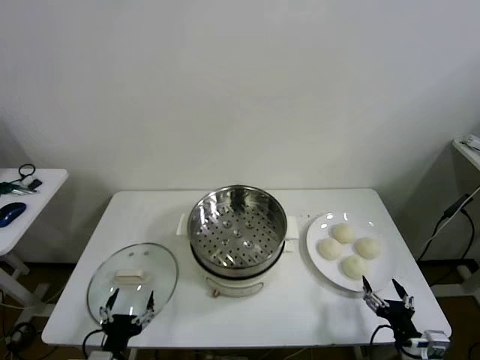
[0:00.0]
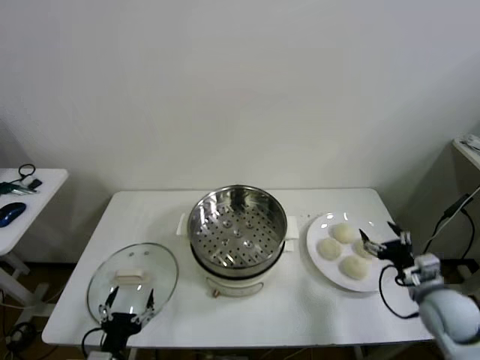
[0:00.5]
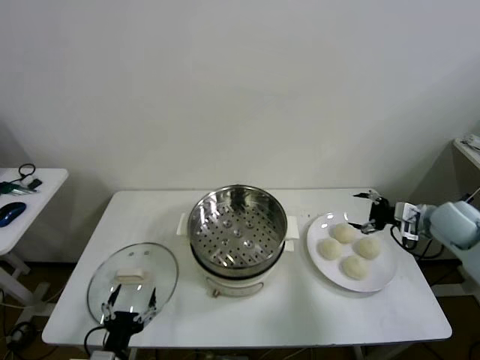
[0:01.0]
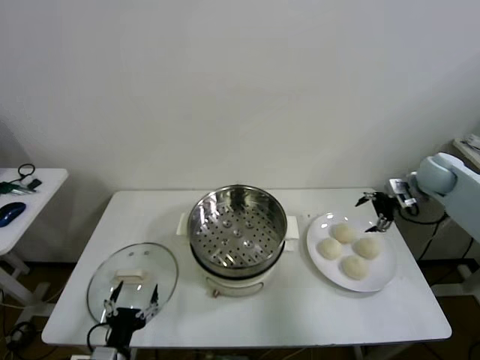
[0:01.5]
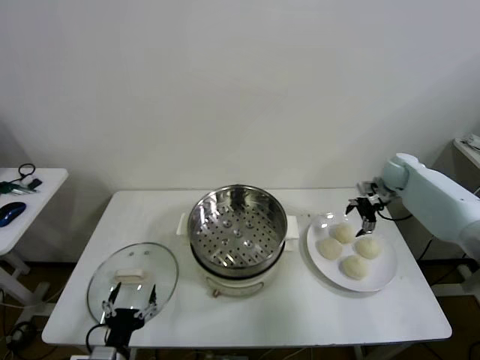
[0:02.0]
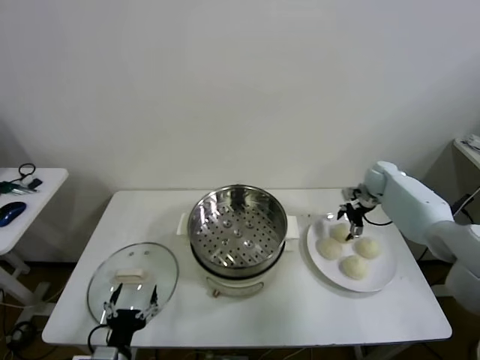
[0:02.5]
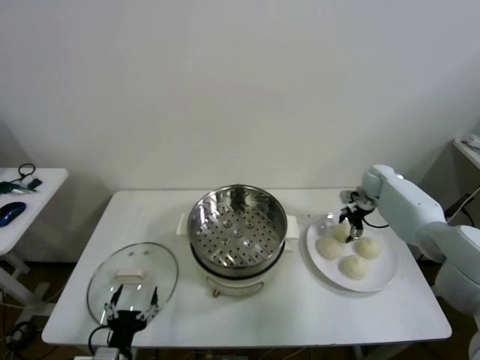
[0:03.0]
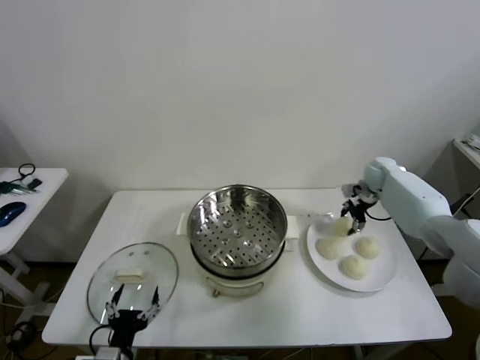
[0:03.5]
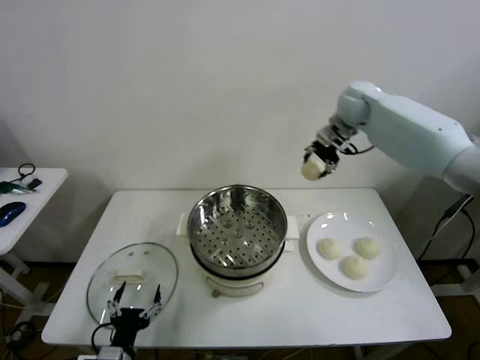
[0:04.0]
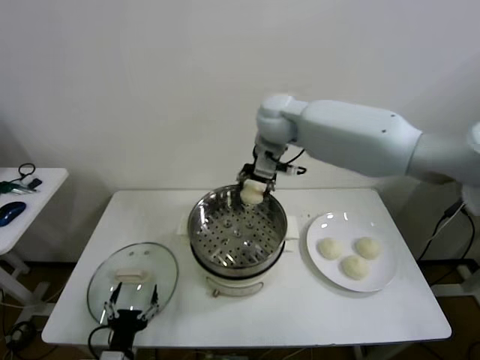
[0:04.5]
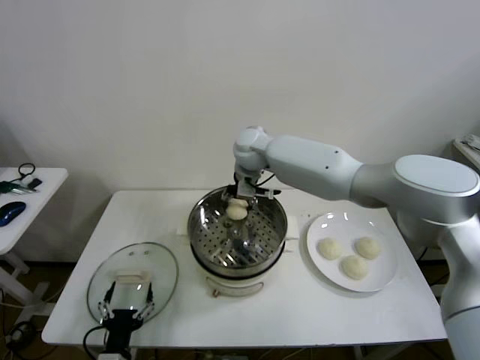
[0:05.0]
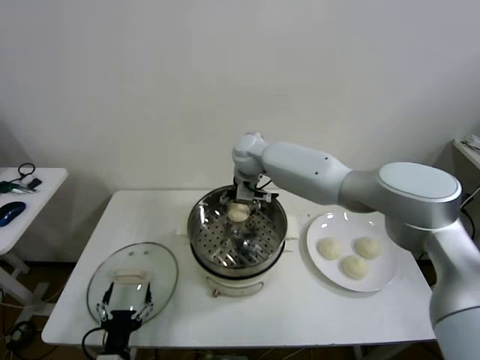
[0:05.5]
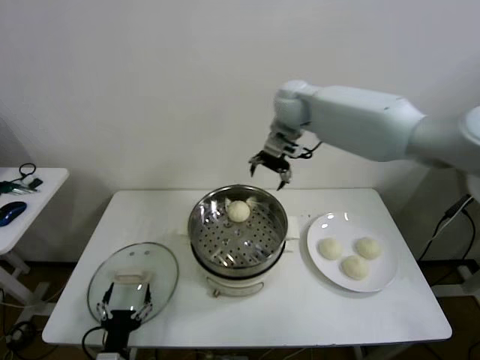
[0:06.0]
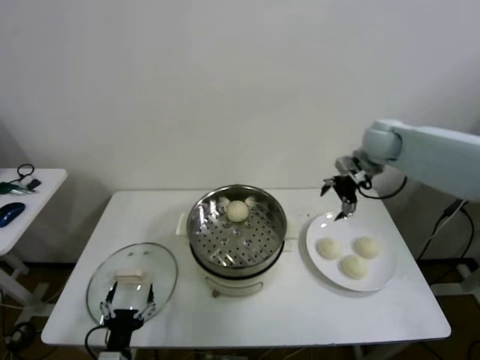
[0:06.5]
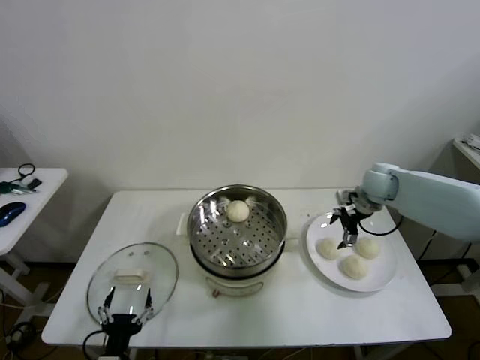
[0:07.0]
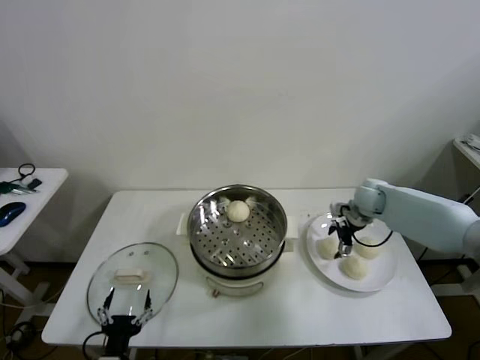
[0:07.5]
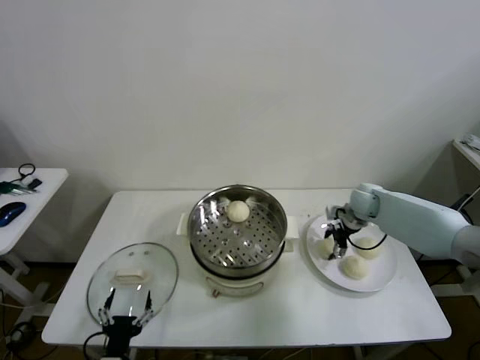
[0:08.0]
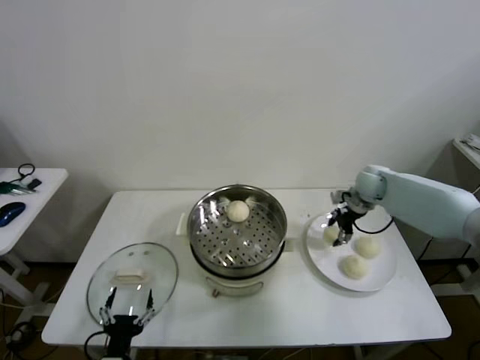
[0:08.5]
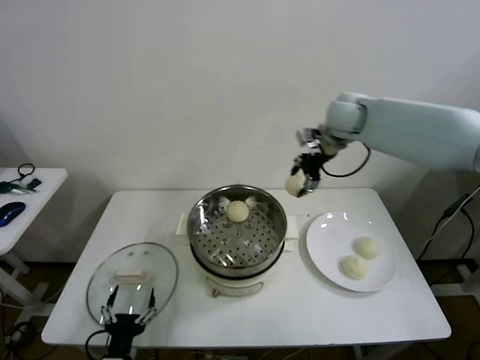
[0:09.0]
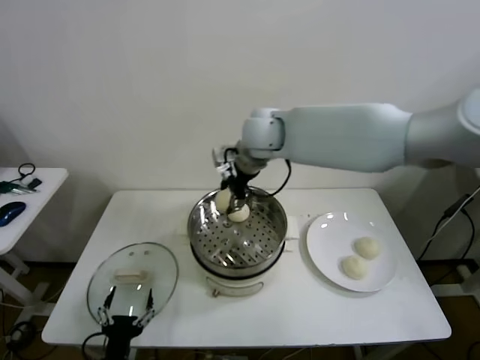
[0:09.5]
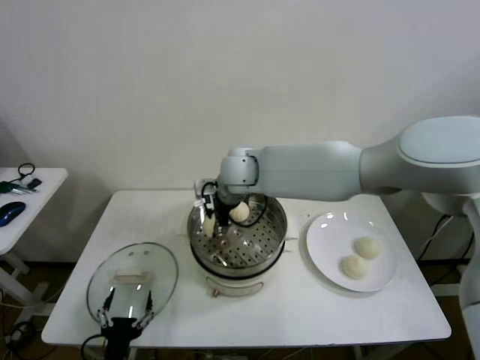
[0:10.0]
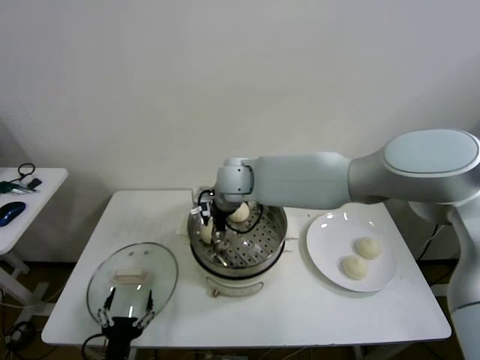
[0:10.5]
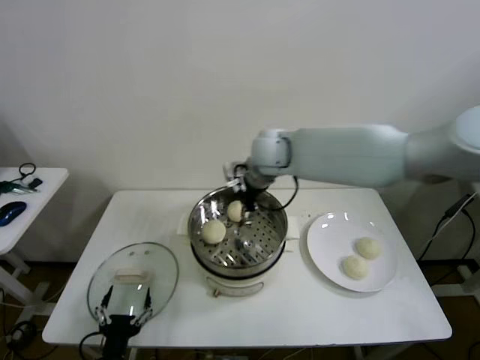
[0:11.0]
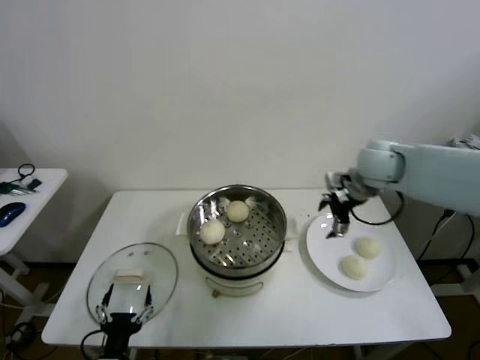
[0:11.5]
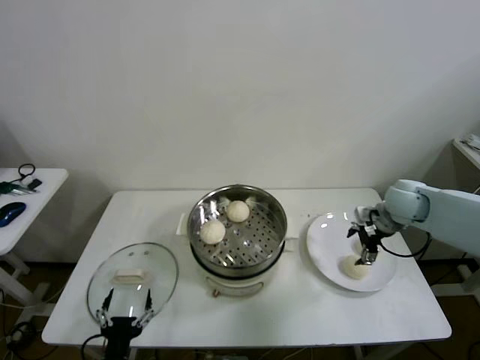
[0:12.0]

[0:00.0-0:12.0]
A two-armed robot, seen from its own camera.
Step, 0:00.0 to 0:03.0: Grasp the baozi in the plate with right gripper.
Step, 0:03.5 to 0:05.0: Place the baozi on the steamer with right gripper.
Step, 0:06.0 to 0:08.0: Grasp the baozi in the plate with right gripper.
Step, 0:08.5 to 0:10.5: Place the baozi on the steamer with right gripper.
0:02.0 to 0:04.0: The right gripper shifts about 30 cm upward and to the left, and closes up.
0:04.0 to 0:06.0: The right gripper moves about 20 cm to the left and comes back, and opens.
0:06.0 to 0:08.0: The right gripper travels downward and to the right by some 35 cm, and closes.
0:08.0 to 0:10.0: The right gripper goes approximately 40 cm to the left and upward.
0:10.0 to 0:12.0: The right gripper is displaced to the right by about 40 cm, and opens its fingers.

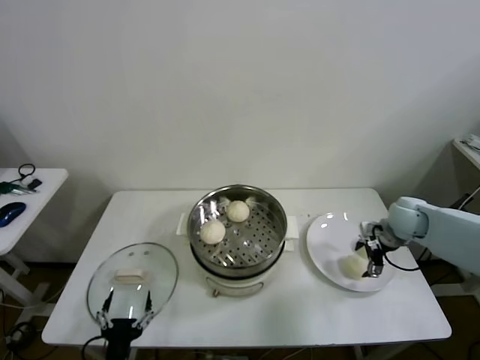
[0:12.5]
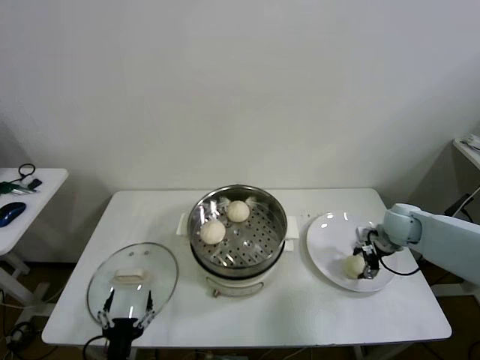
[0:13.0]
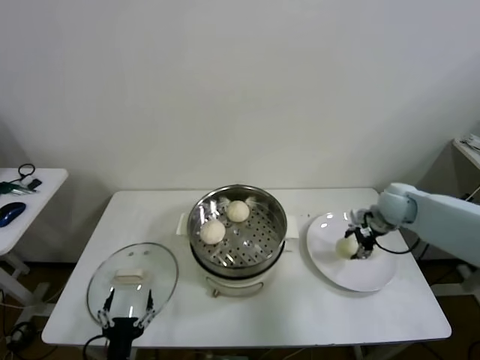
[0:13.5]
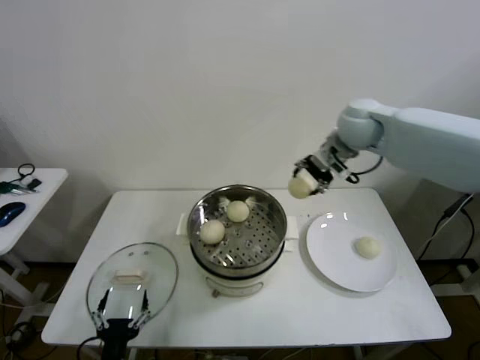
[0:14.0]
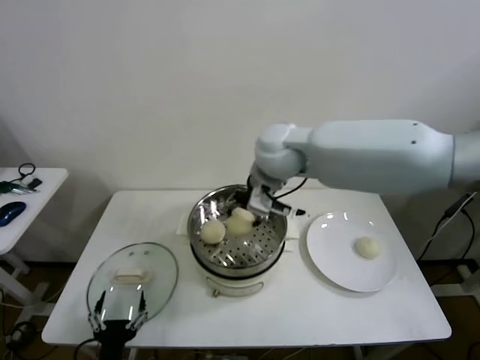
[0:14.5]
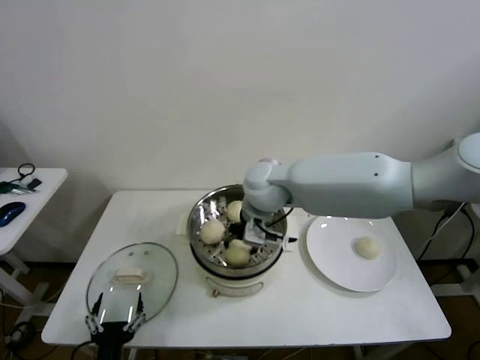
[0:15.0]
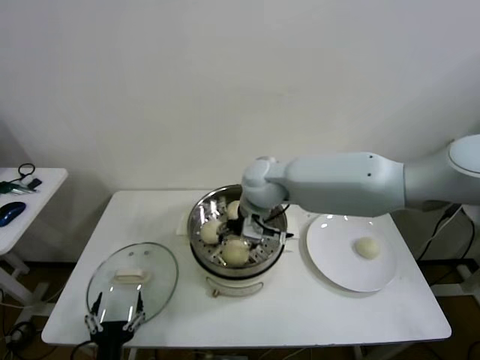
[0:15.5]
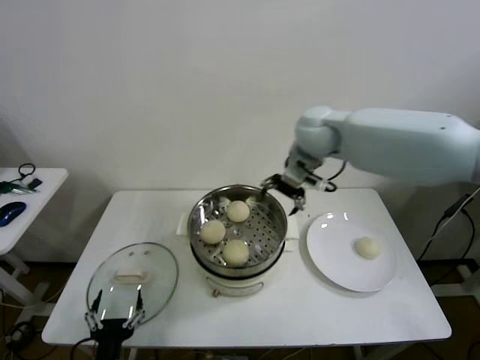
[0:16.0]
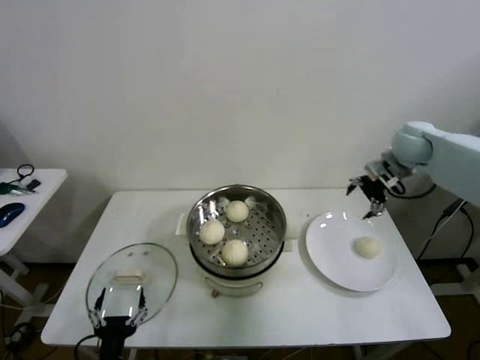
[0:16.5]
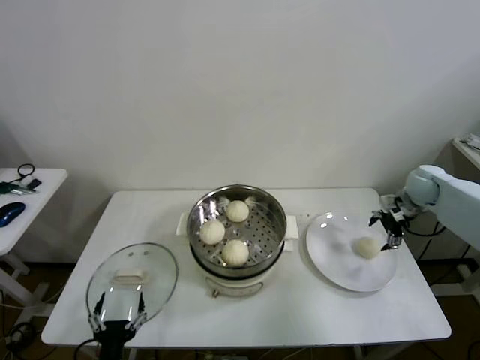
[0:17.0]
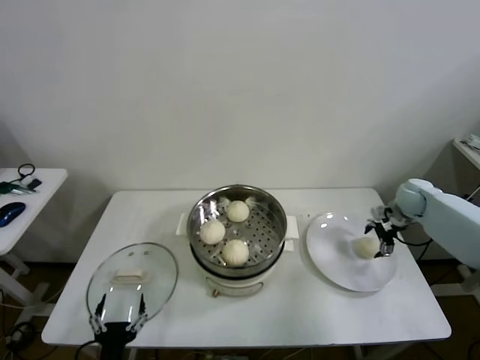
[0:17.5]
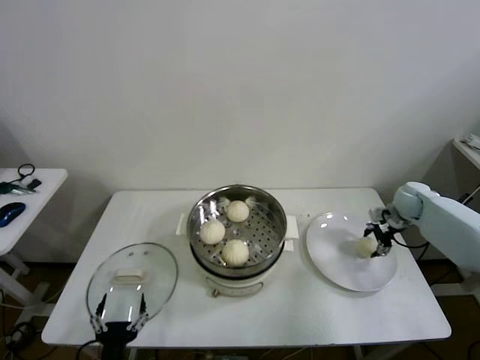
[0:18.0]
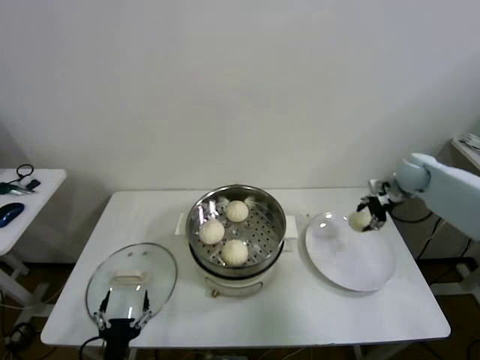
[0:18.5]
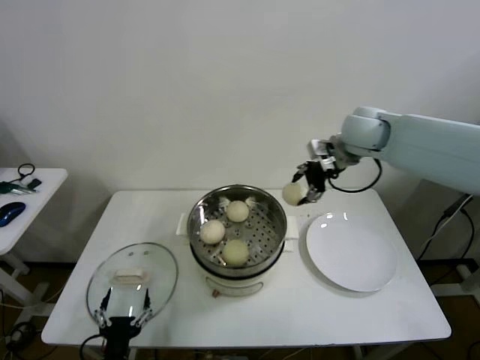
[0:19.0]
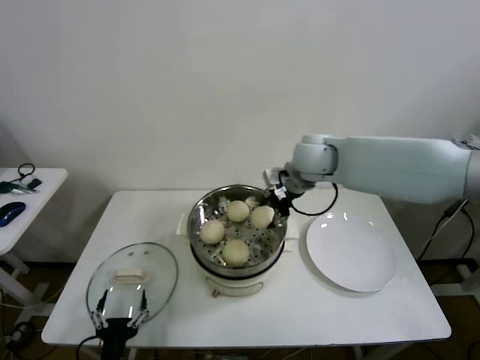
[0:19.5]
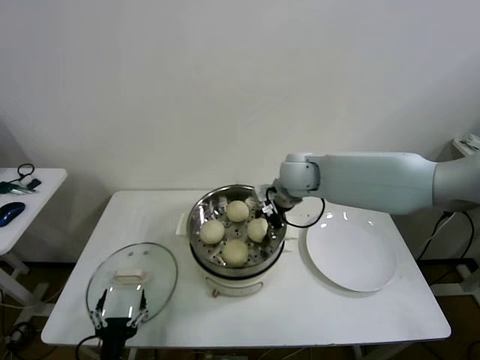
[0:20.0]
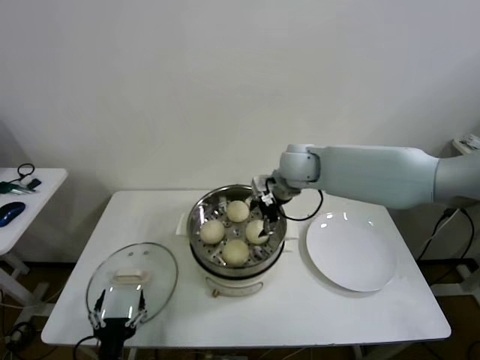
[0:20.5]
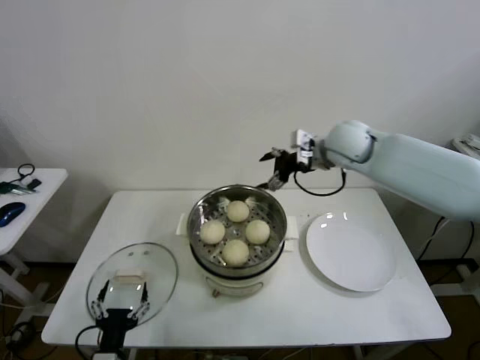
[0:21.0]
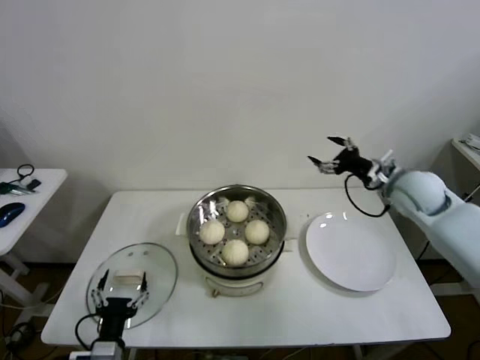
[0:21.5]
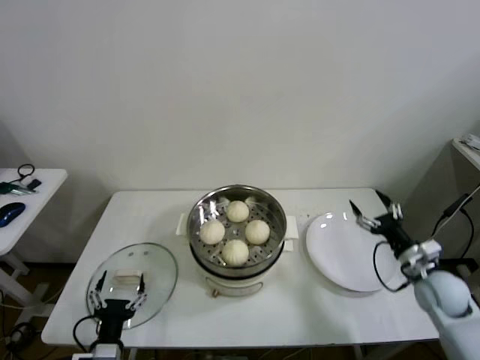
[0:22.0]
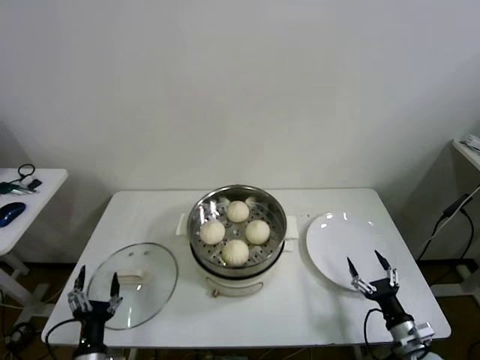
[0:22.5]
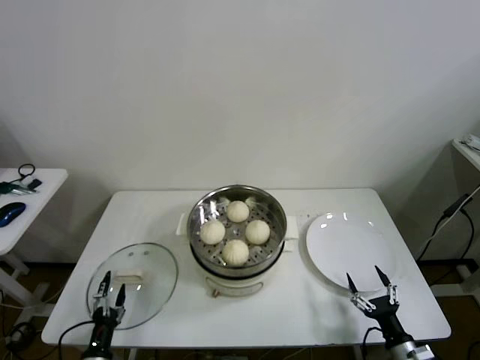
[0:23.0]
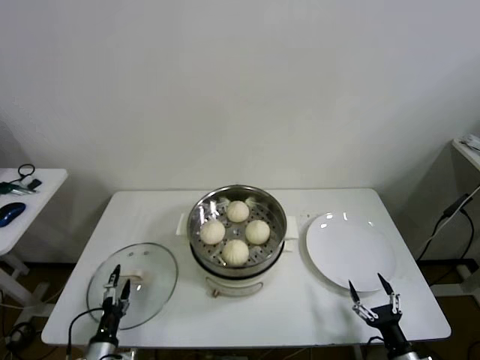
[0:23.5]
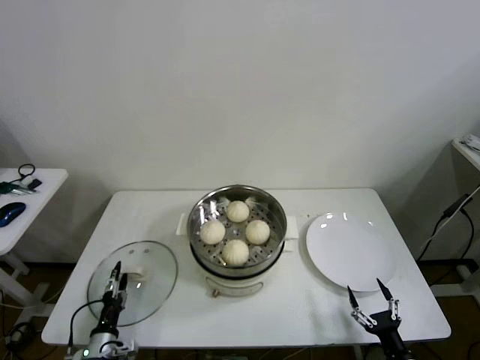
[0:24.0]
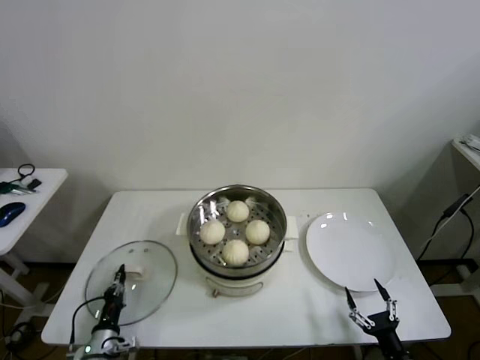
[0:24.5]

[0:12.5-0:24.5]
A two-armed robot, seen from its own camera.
Step, 0:13.5 to 0:15.0: Place the baozi on the steamer with right gripper.
Step, 0:15.5 to 0:18.0: Grasp the baozi in the plate with right gripper.
Step, 0:18.5 to 0:20.0: Place the baozi on the steamer with right gripper.
Step, 0:20.5 to 0:24.5: Grasp the pot lid with left gripper.
0:12.5 to 0:14.5: The right gripper goes roughly 40 cm to the left and upward, and closes up.
0:14.5 to 0:16.5: The right gripper is displaced to the right by roughly 35 cm, and opens up.
0:16.5 to 0:18.5: The right gripper heads downward, covering roughly 10 cm, and closes up.
0:18.5 to 0:20.5: The right gripper heads to the left, covering approximately 30 cm, and opens its fingers.
0:20.5 to 0:22.5: The left gripper changes place by roughly 5 cm. Meanwhile the right gripper heads downward, backward and to the right, covering roughly 50 cm.
0:22.5 to 0:24.5: The right gripper is displaced backward by some 5 cm. The left gripper goes some 10 cm downward and forward, and closes.

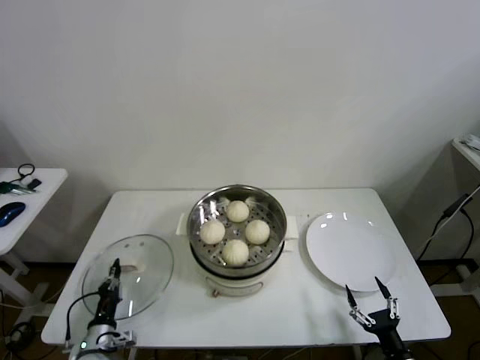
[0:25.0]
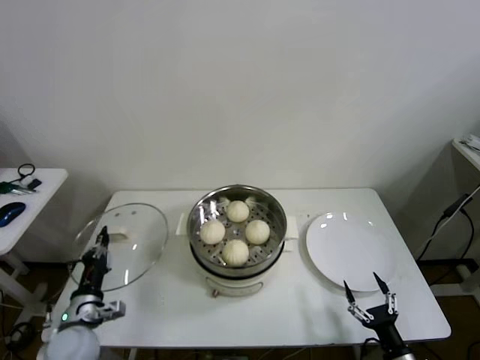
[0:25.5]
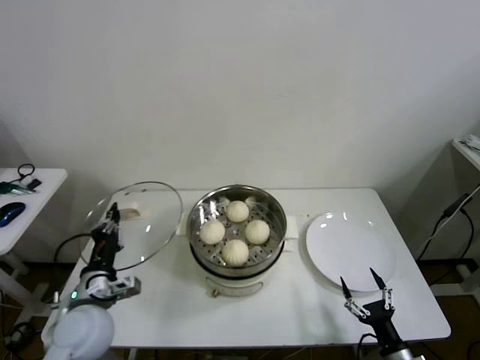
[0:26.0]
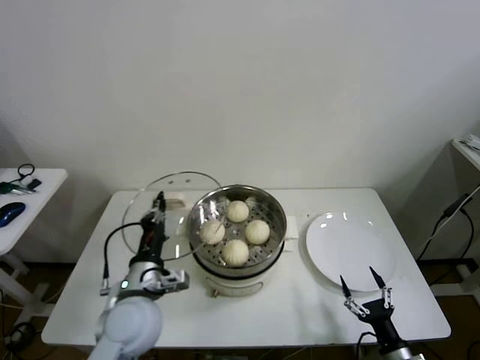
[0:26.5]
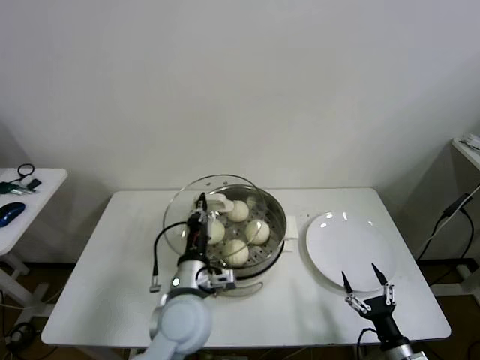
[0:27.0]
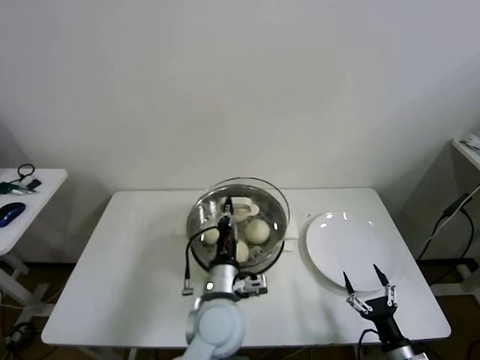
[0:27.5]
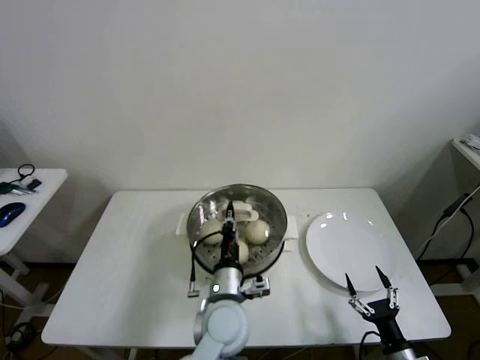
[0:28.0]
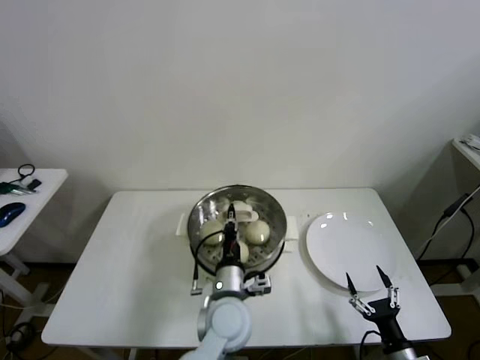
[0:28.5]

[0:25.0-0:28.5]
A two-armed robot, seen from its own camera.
0:25.0 to 0:27.0: The left gripper shifts some 35 cm to the right and upward.
0:27.0 to 0:28.5: The left gripper shifts roughly 10 cm to the right and downward.
